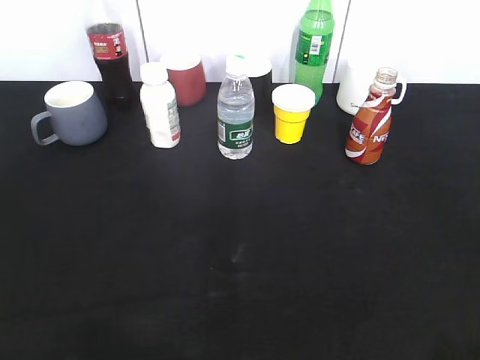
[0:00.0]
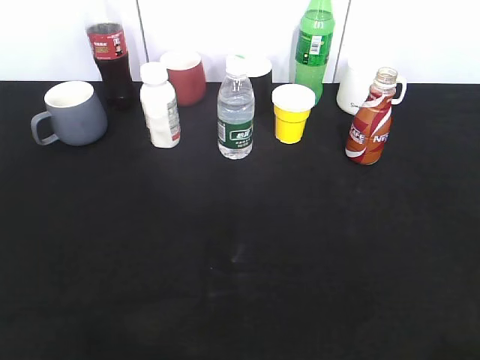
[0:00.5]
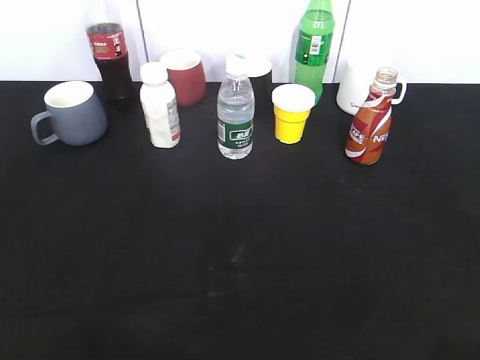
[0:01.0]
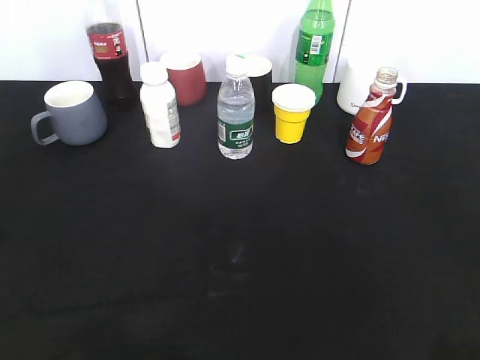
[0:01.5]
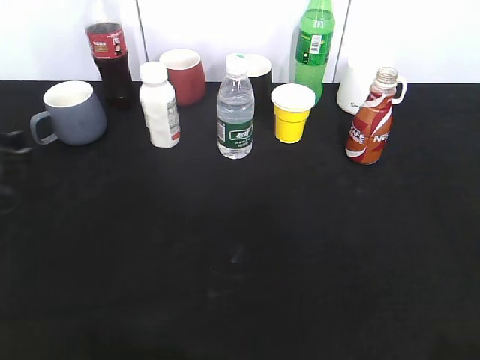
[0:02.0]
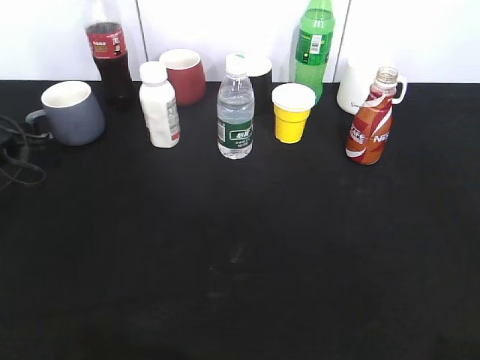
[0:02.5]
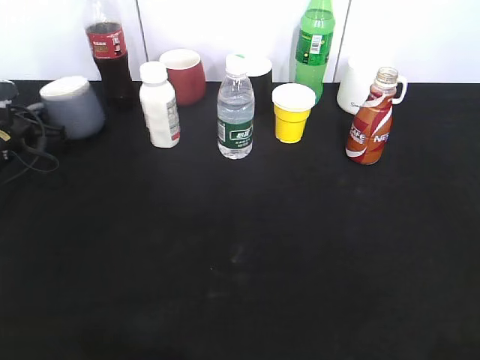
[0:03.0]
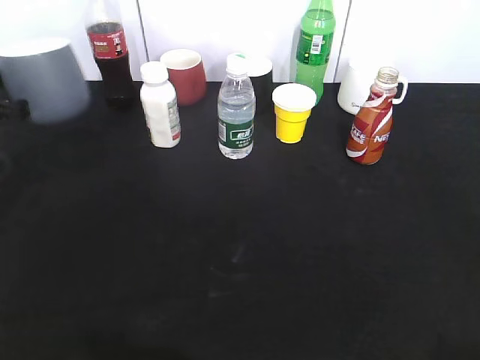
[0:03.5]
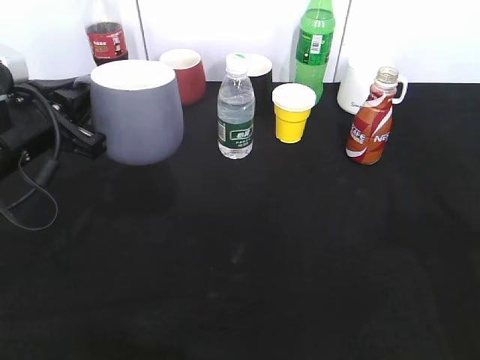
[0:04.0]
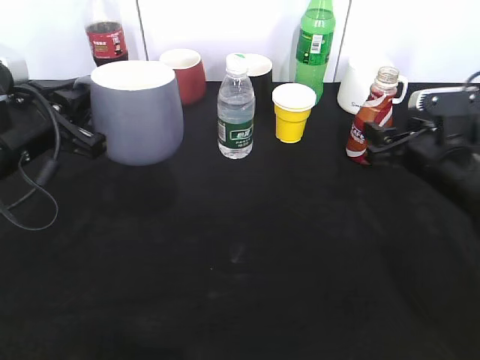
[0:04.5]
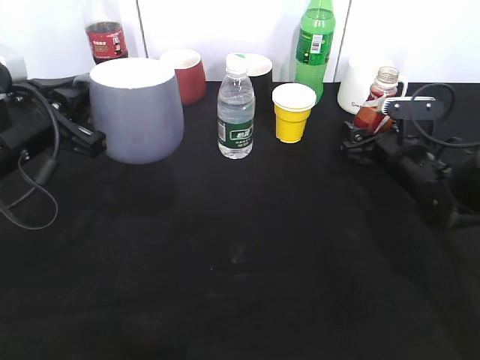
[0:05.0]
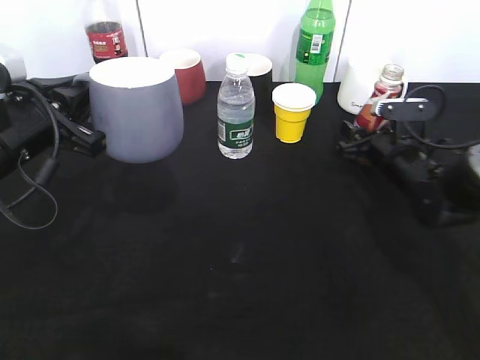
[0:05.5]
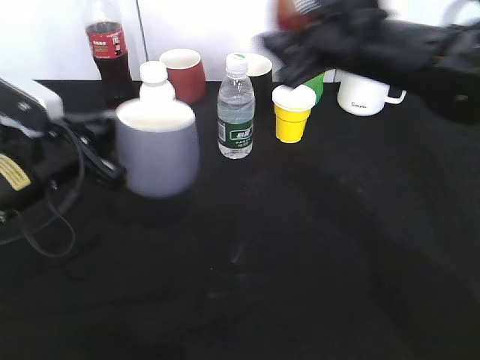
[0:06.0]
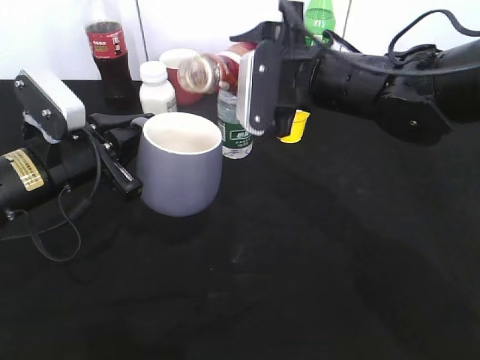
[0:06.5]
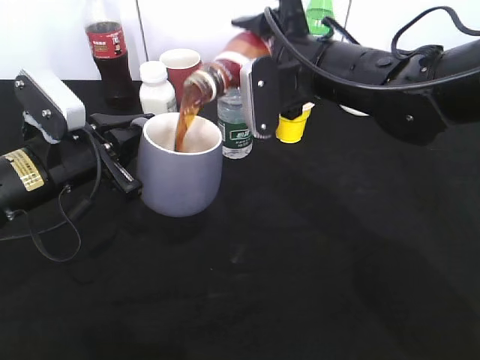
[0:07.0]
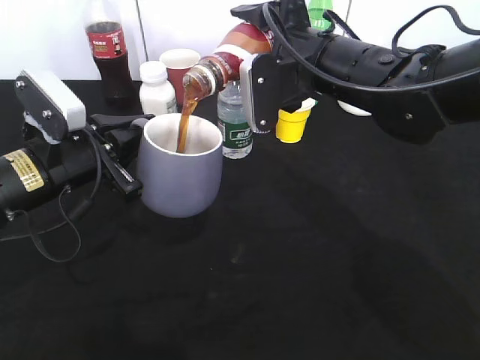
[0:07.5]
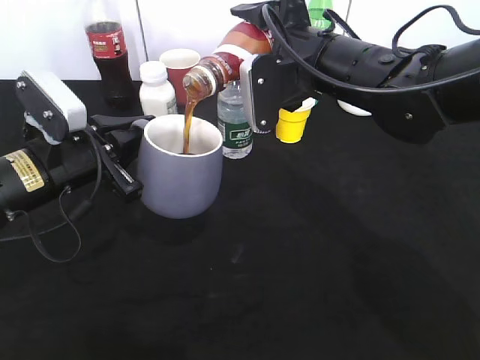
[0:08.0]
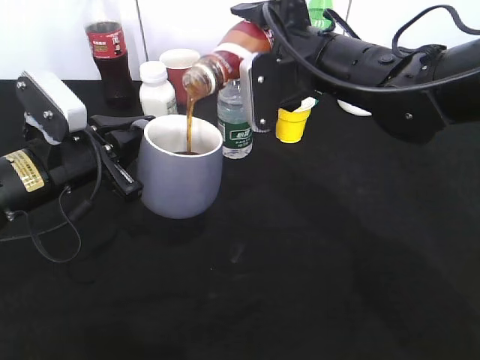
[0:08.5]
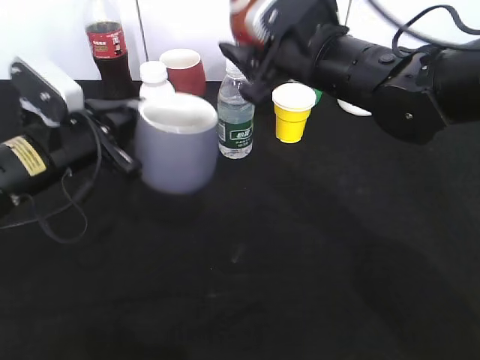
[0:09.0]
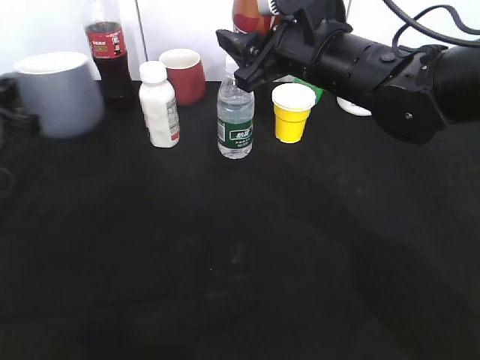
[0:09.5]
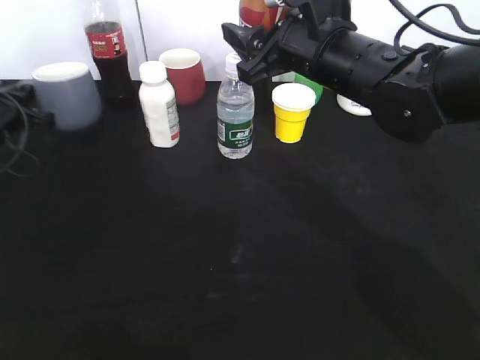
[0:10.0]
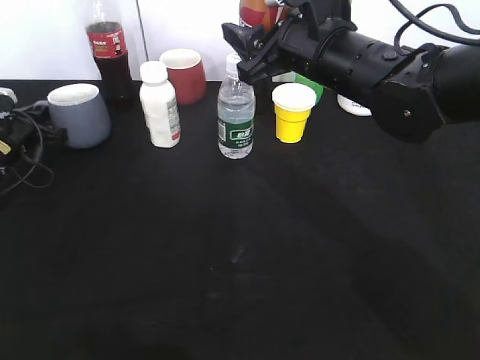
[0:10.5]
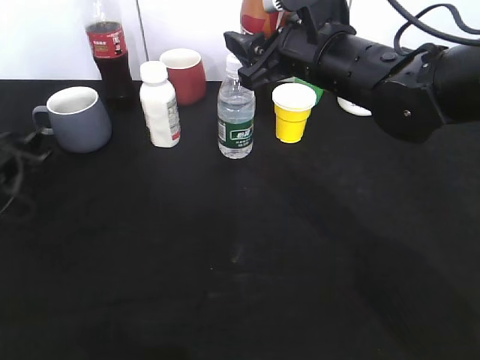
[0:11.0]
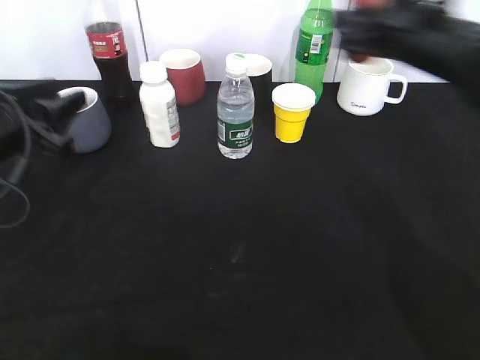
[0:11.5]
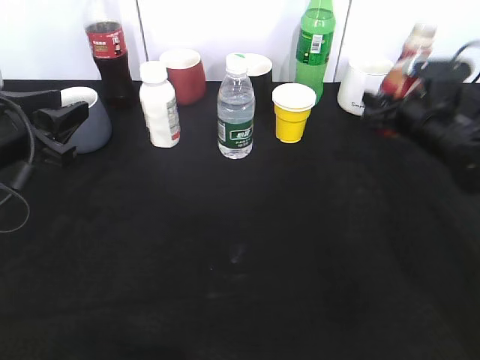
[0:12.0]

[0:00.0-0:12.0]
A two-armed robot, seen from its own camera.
Step, 0:02.0 to 0:03.0: Grasp the grey cup with left gripper.
Step, 0:04.5 to 0:05.0: Grasp the bottle with coffee with right gripper.
Step, 0:05.5 to 0:08.5: Pour the coffee from bottle to cup with right gripper.
Step, 0:09.0 to 0:10.5: Place the grey cup on the table with left gripper.
0:00.0 to 0:02.0: The left gripper is displaced forward and downward by about 35 cm, and opens.
0:02.0 to 0:04.0: The right gripper goes approximately 20 cm forward; the left gripper travels to the right and upward by approximately 10 cm, moves roughly 10 cm forward and comes back, and closes.
0:04.0 to 0:06.0: The right gripper heads to the left and forward, covering roughly 25 cm, and closes.
0:08.0 to 0:10.0: The left gripper shifts about 20 cm to the left and forward.
0:10.0 to 0:12.0: The right gripper heads to the right and downward, covering approximately 20 cm; the left gripper heads backward, to the right and upward, covering about 20 cm, and opens.

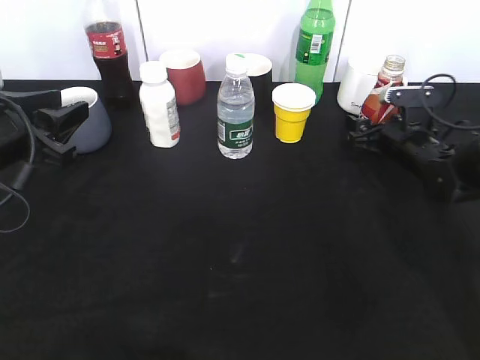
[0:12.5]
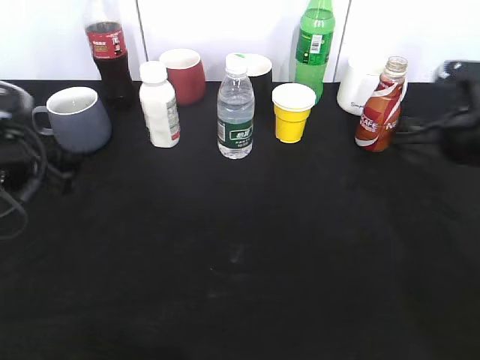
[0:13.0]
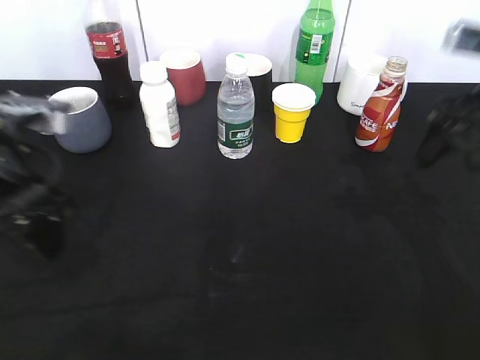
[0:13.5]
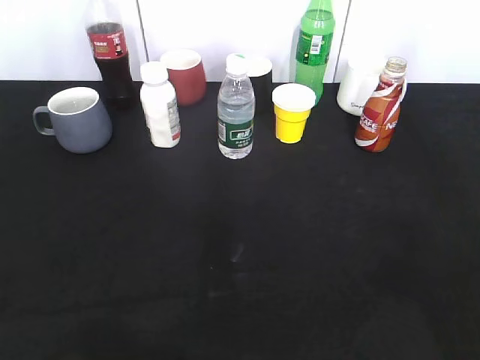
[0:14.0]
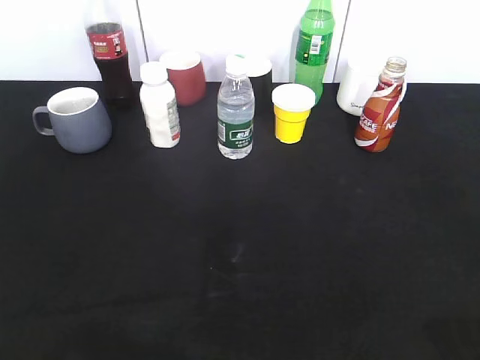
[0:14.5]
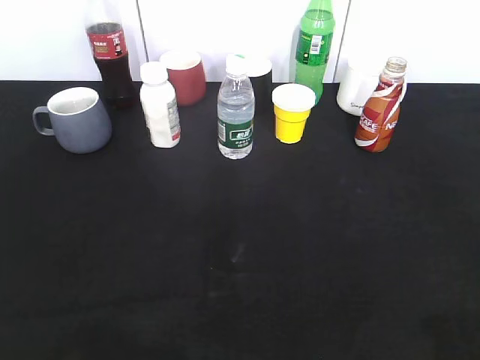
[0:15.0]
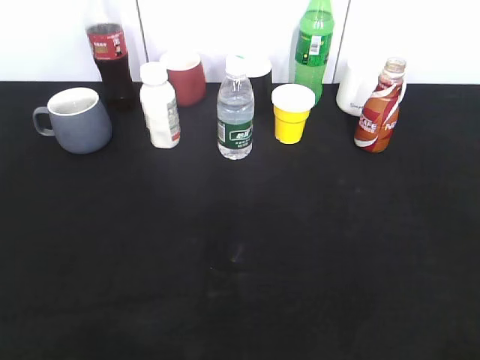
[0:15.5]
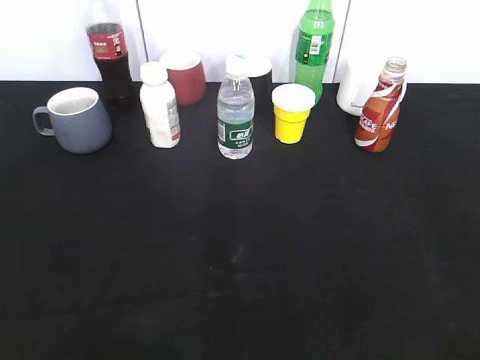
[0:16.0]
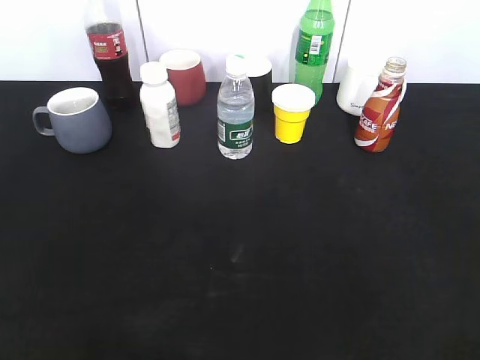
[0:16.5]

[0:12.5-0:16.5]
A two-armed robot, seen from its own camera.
0:12.5 to 0:14.5: The right gripper travels backward and upward by approximately 50 cm, and closes; the left gripper travels backward and upward by some 25 cm.
